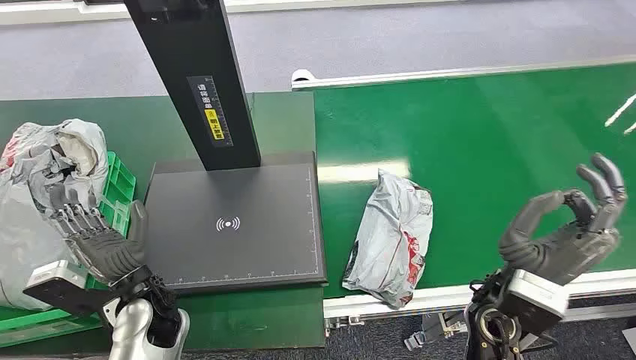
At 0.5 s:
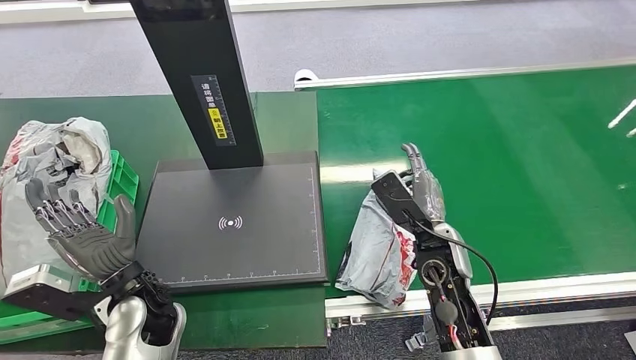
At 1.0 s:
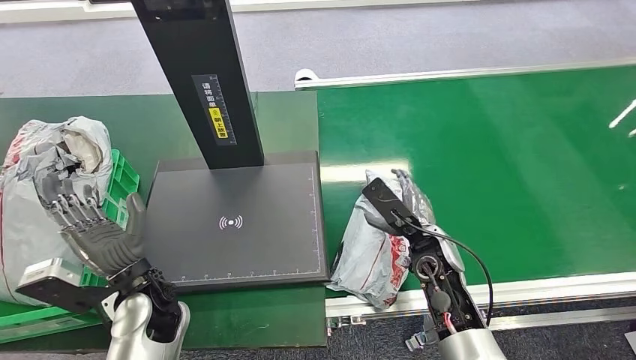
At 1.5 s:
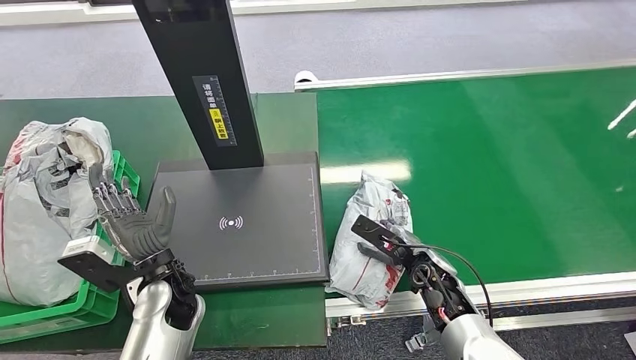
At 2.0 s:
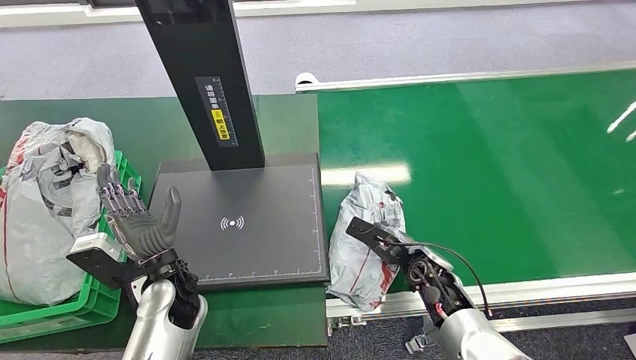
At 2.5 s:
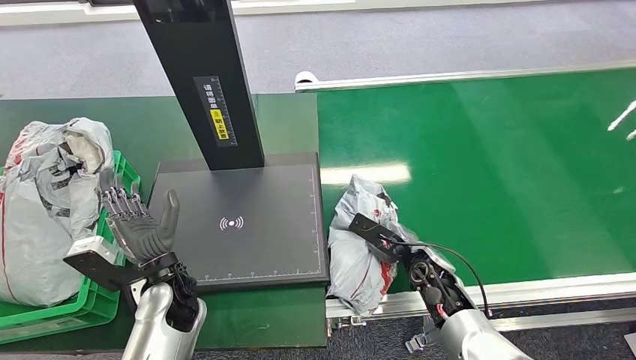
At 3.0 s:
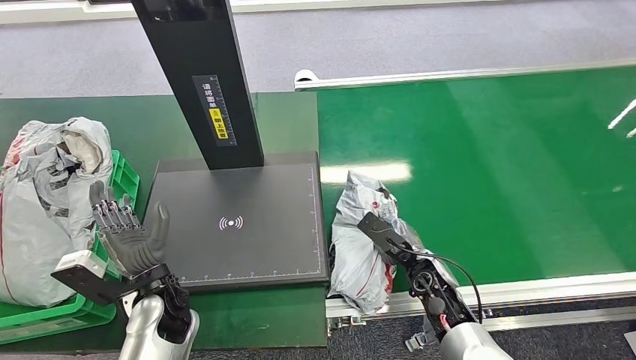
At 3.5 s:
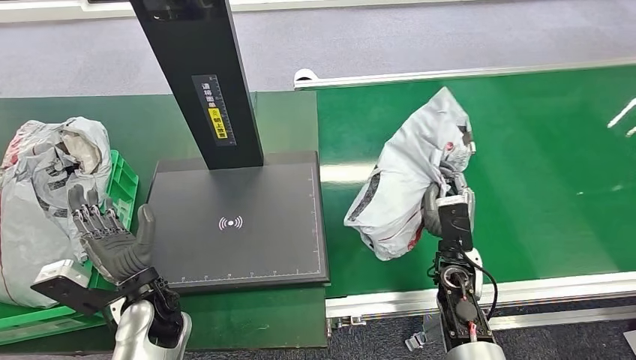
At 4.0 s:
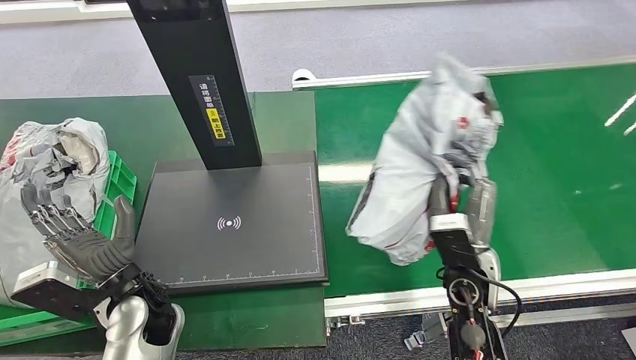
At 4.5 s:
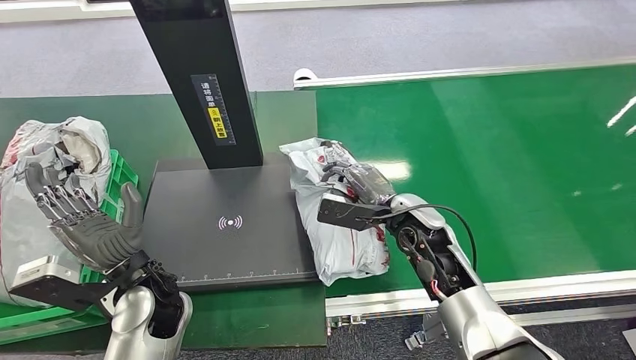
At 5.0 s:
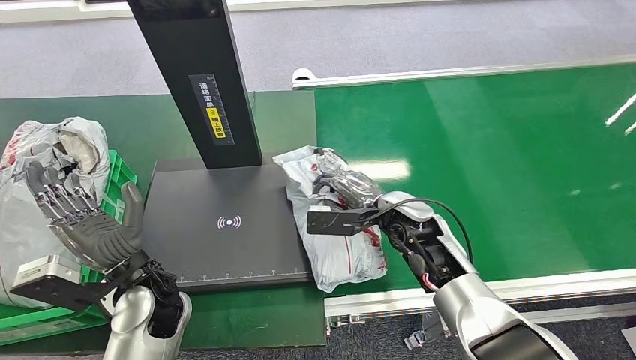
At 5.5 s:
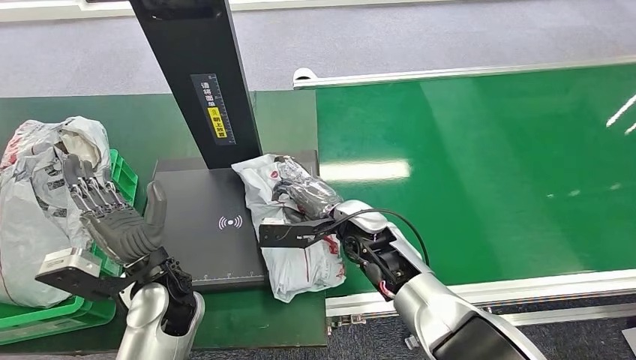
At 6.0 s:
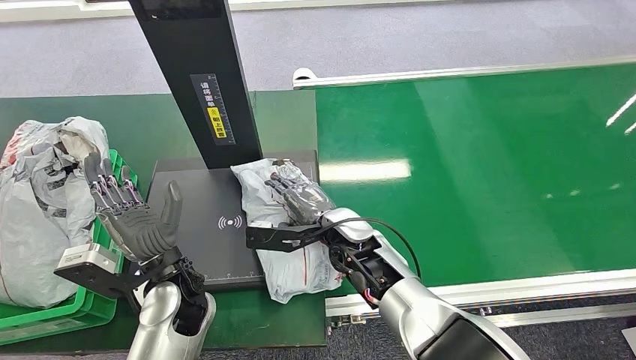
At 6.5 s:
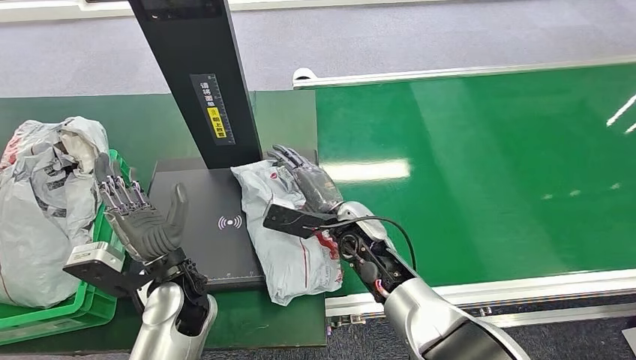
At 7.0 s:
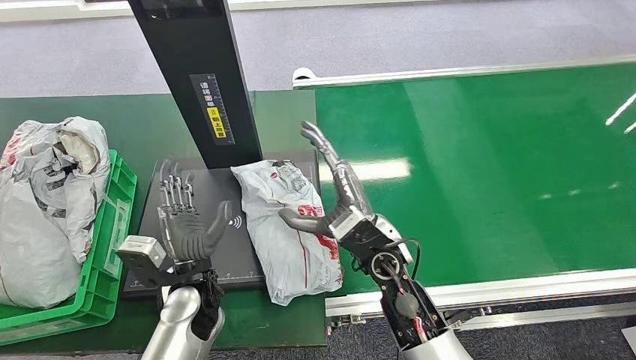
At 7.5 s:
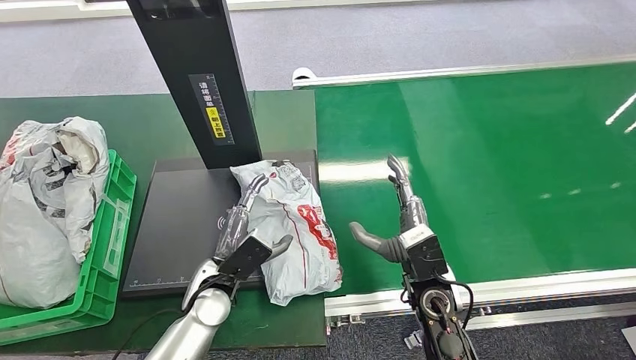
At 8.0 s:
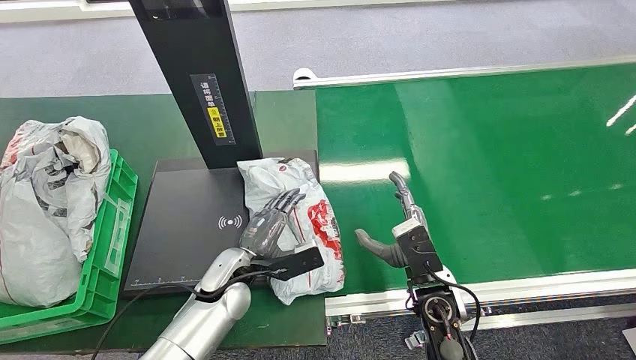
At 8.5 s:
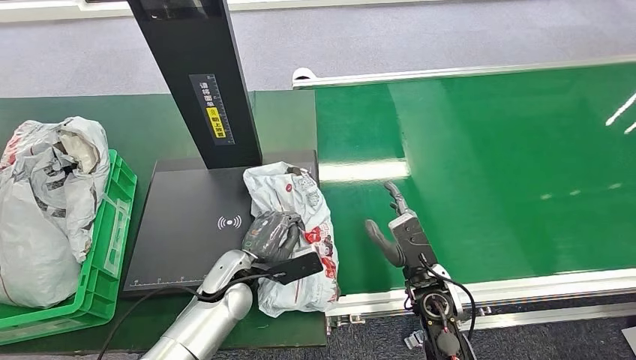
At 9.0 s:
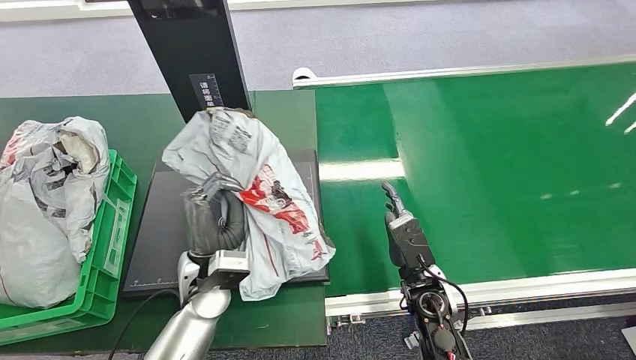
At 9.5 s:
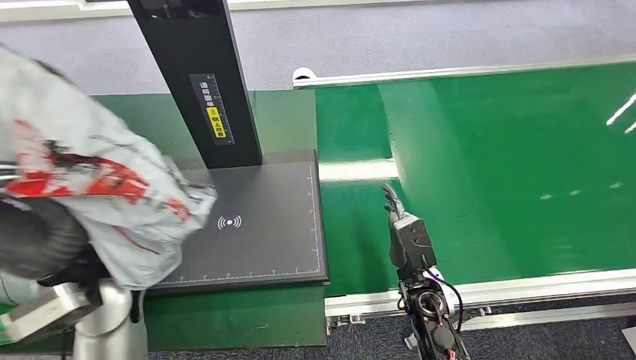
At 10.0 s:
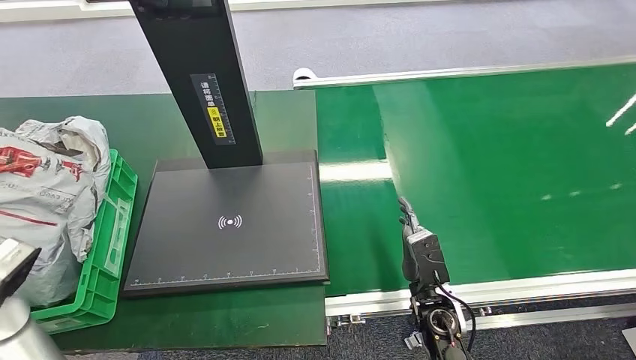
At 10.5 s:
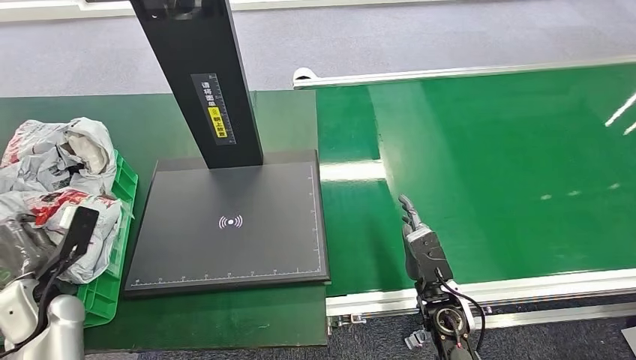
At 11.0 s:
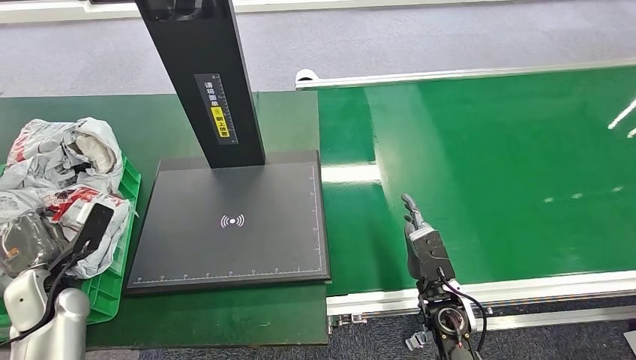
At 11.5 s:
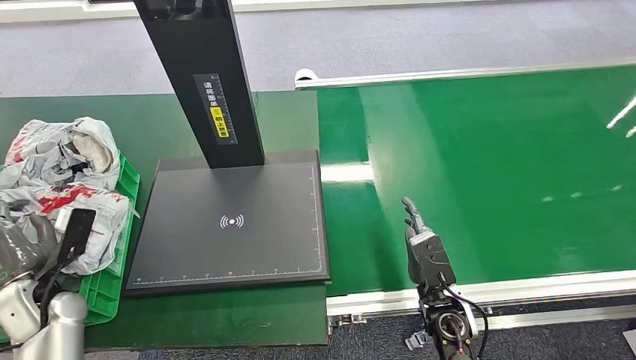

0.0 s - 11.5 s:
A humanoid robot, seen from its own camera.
Step, 0.0 s - 3.5 s: Pick up the package from the conveyor belt.
Step, 4.0 s - 7.0 s: Place the package onto the inbound machine.
Step, 7.5 s - 9.0 s: Pick up the package from the inbound machine.
Step, 9.5 s - 11.5 s: Place the package into the parcel locker.
6.0 s - 7.5 s: The right hand is displaced to the right and backward by some 15 cm. The left hand shifts approximately 10 cm downward.
